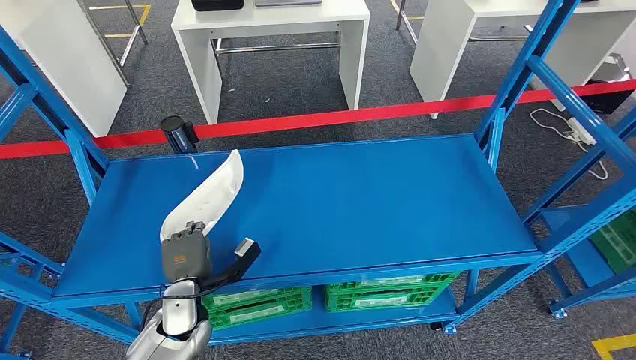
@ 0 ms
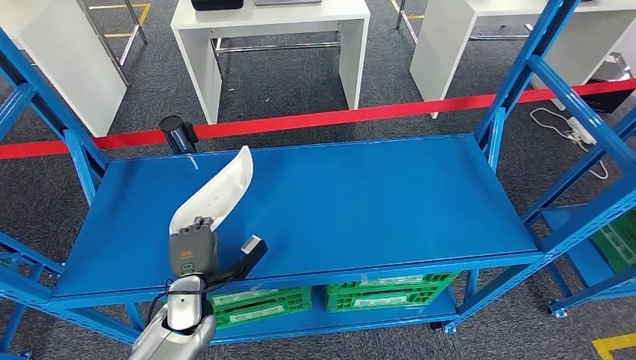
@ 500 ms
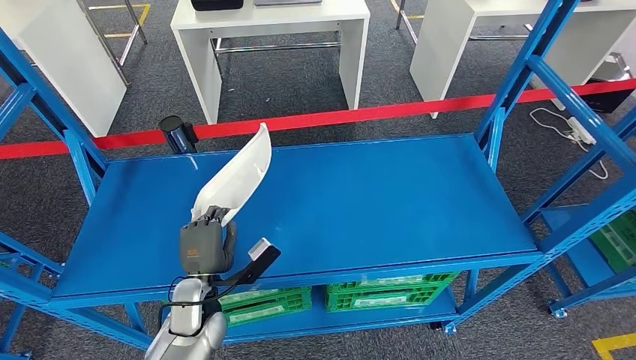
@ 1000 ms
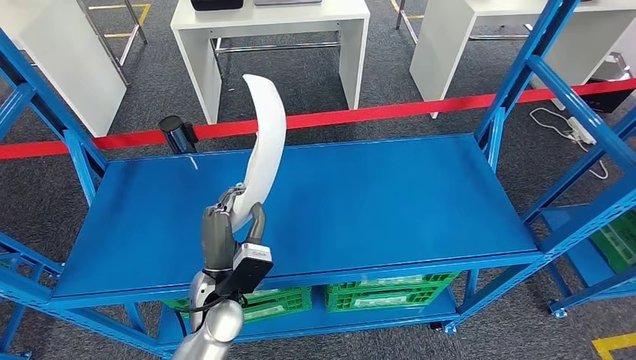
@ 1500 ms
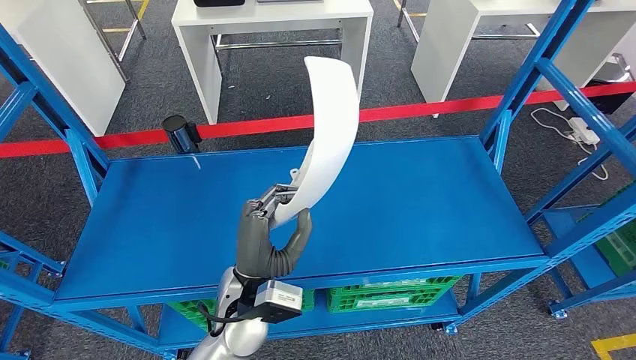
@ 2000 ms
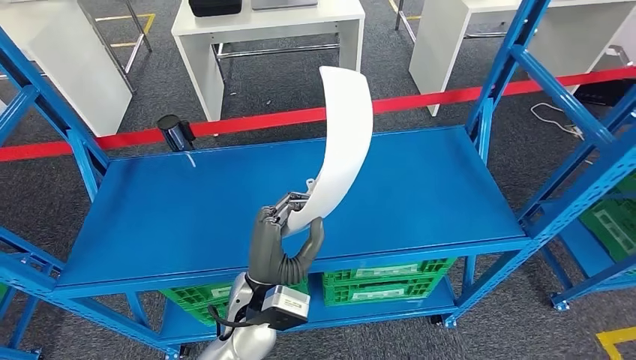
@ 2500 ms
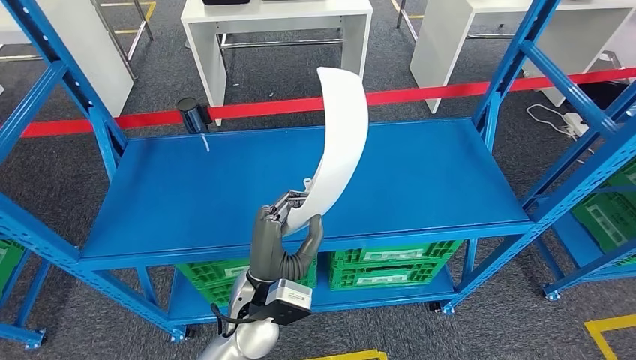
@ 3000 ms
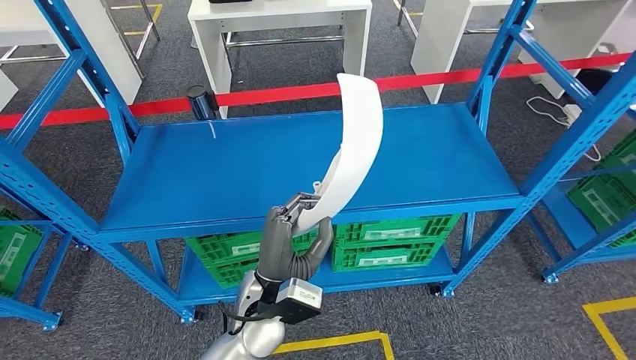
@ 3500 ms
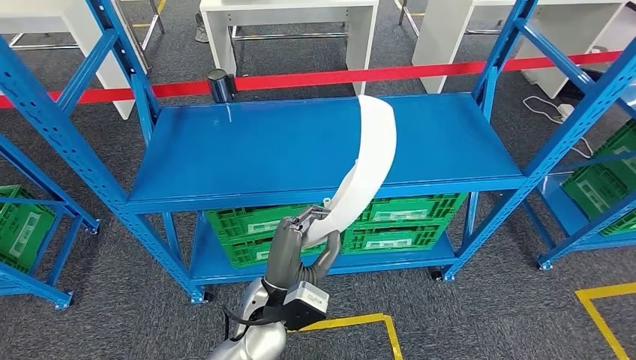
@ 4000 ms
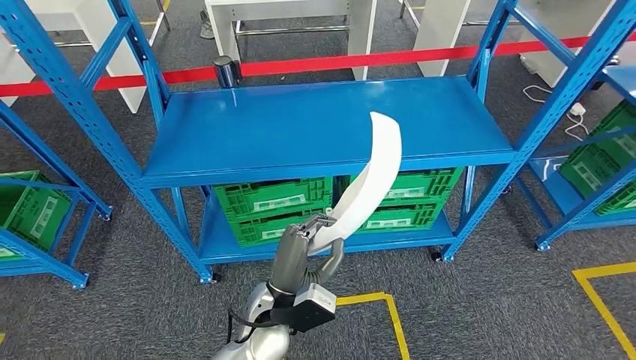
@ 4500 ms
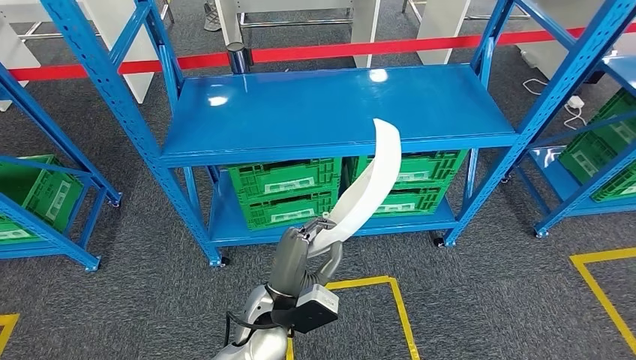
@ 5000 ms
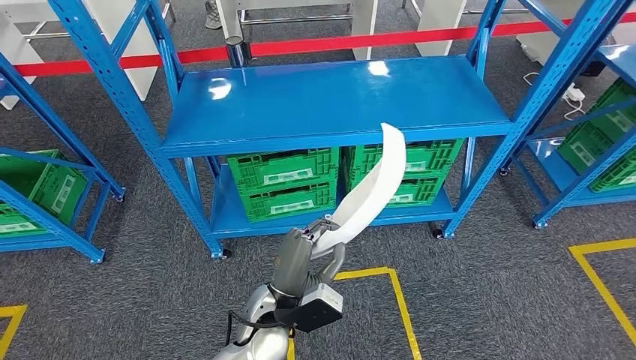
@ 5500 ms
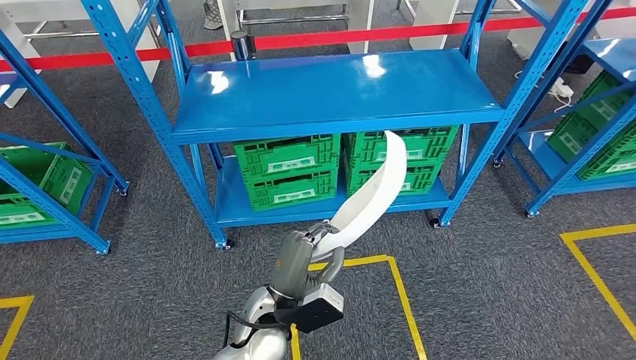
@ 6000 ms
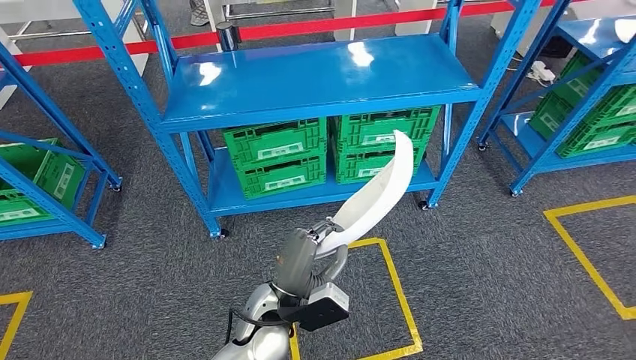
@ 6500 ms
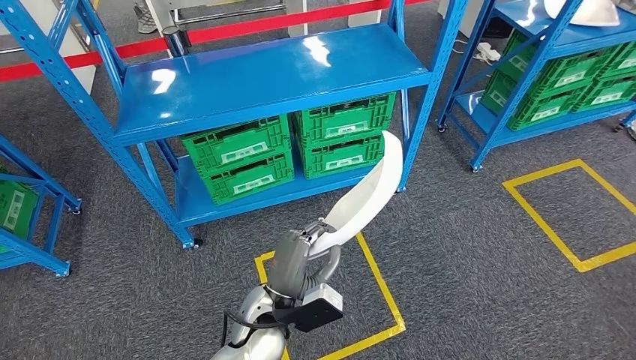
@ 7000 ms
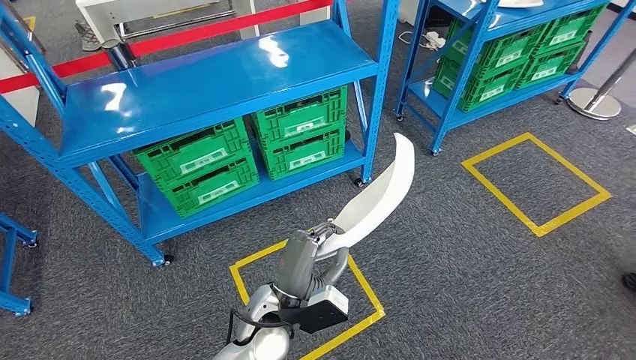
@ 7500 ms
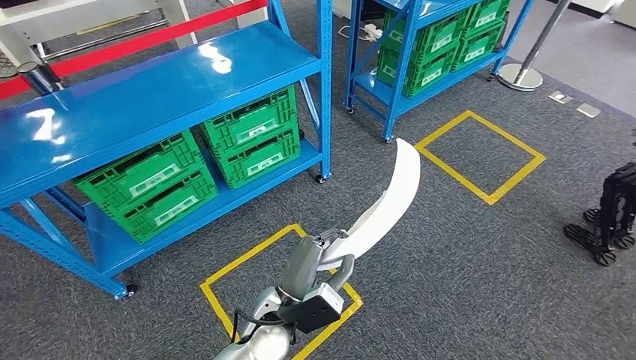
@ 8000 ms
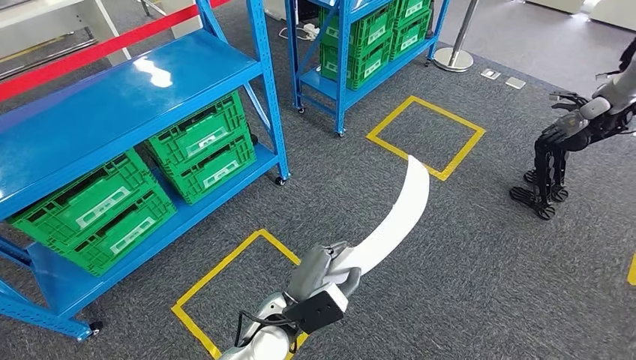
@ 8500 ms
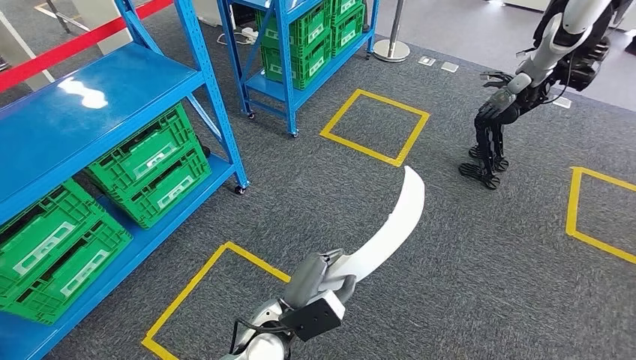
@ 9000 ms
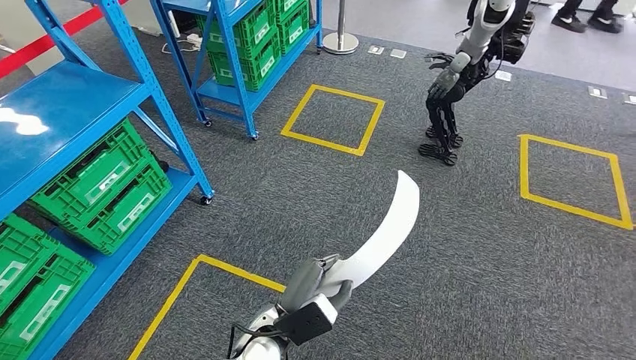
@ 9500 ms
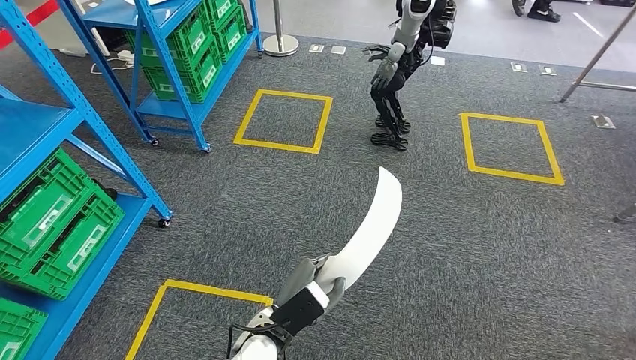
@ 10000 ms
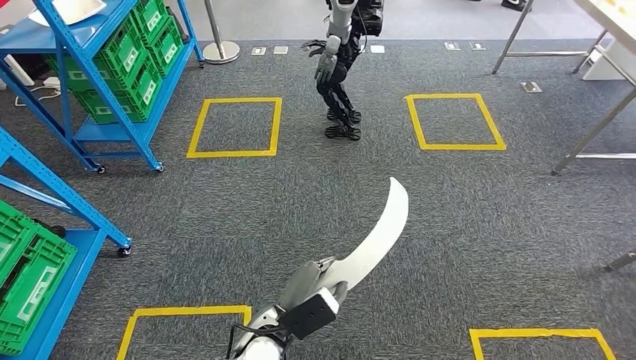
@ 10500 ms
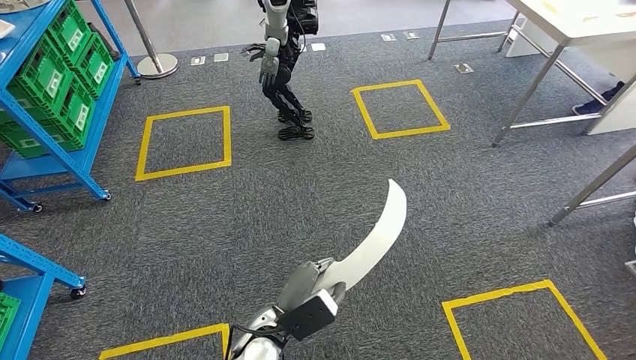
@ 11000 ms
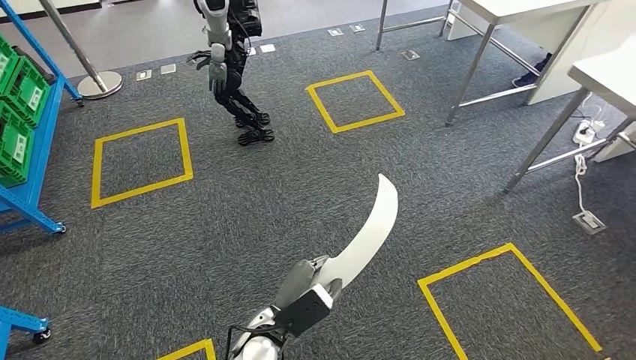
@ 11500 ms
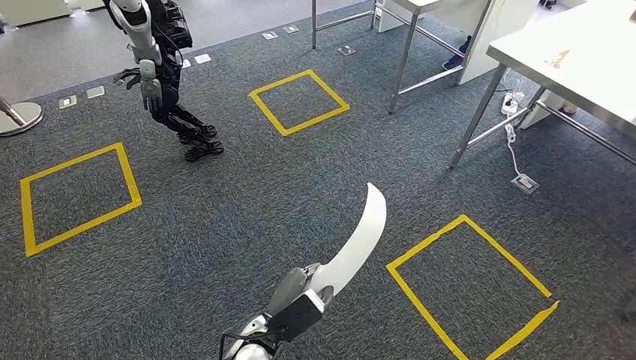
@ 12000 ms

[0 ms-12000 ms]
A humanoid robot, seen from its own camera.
Step, 0 ms to 2000 ms: Take small components from the rack.

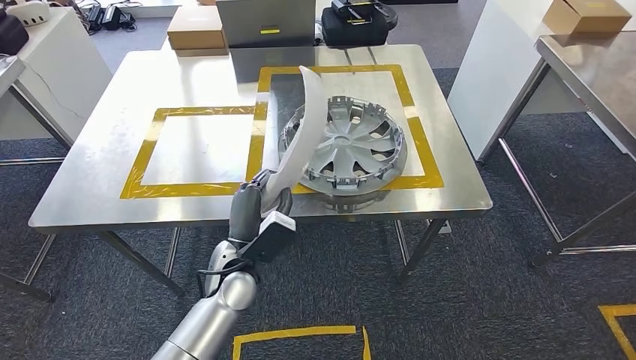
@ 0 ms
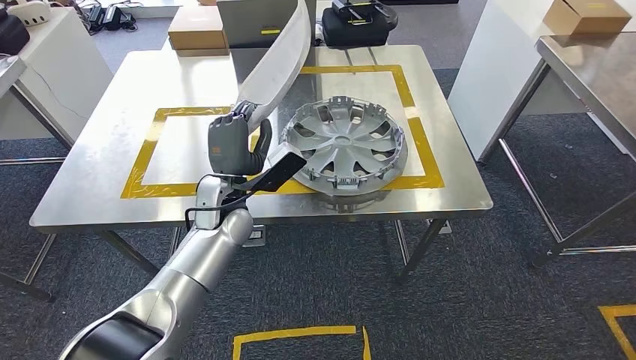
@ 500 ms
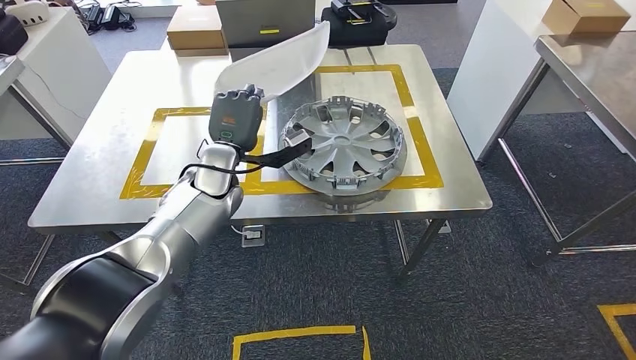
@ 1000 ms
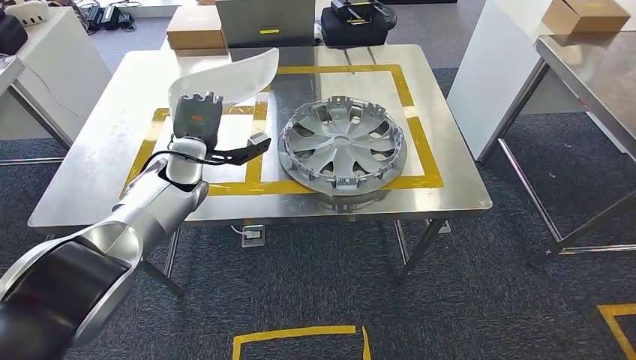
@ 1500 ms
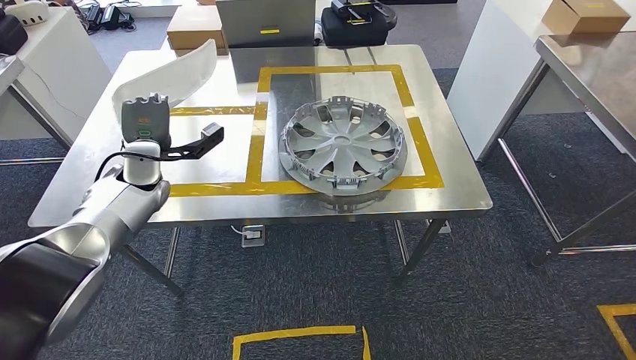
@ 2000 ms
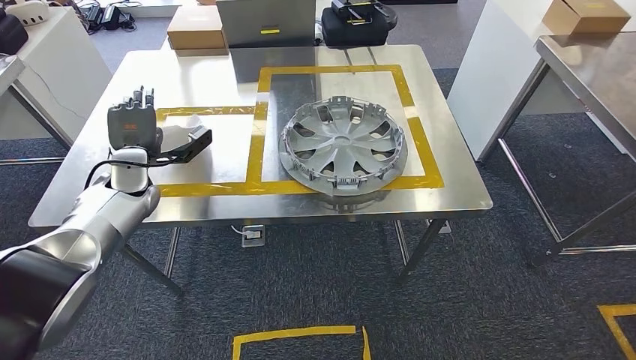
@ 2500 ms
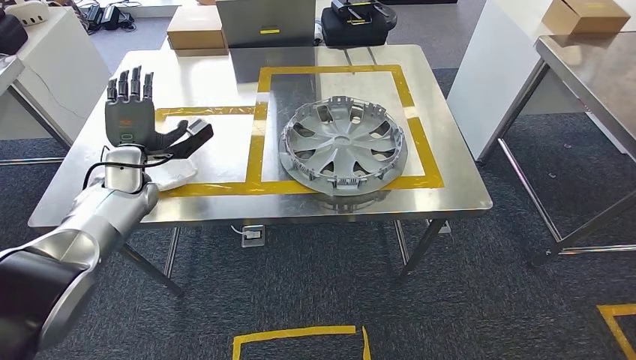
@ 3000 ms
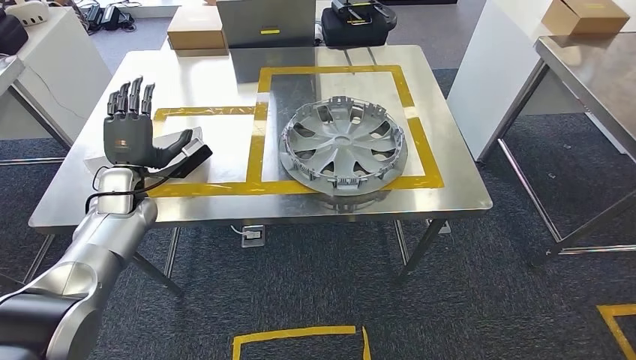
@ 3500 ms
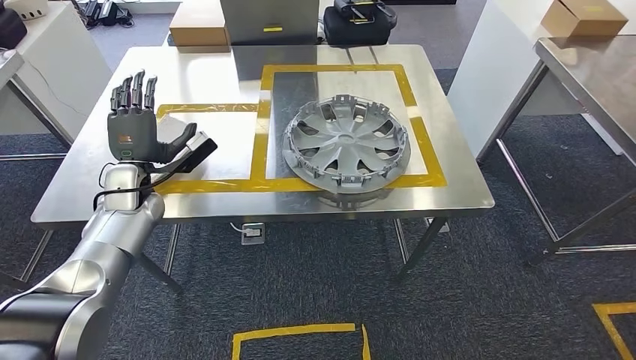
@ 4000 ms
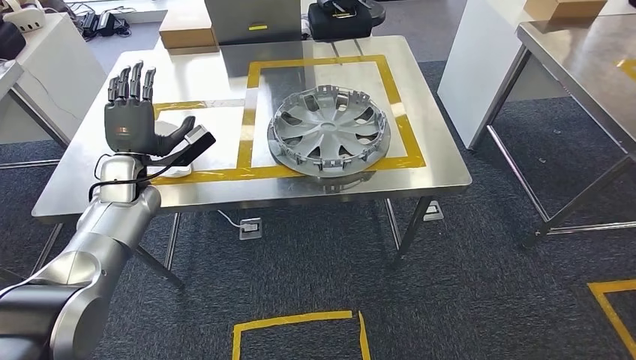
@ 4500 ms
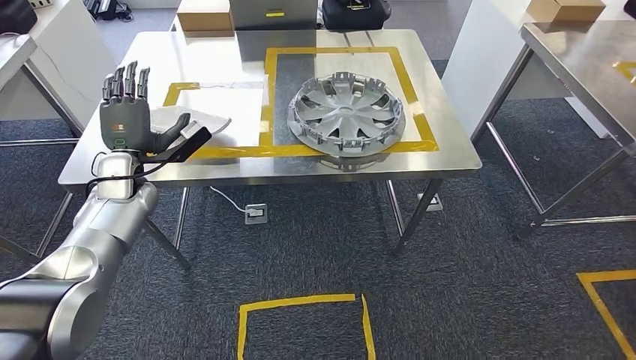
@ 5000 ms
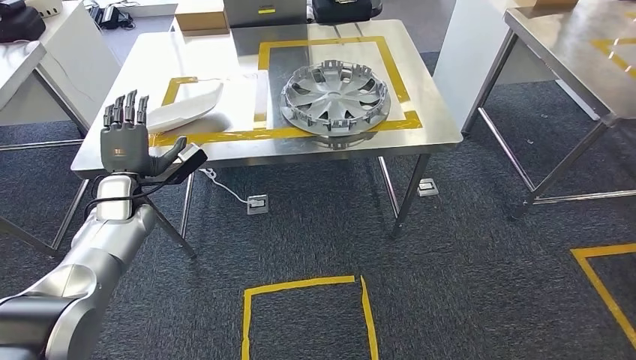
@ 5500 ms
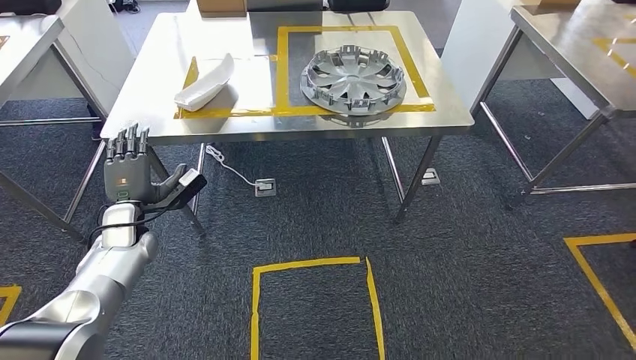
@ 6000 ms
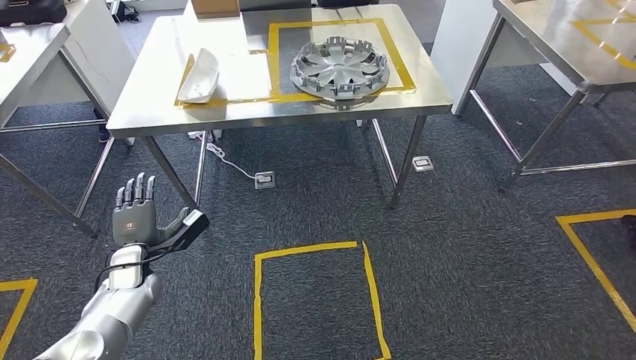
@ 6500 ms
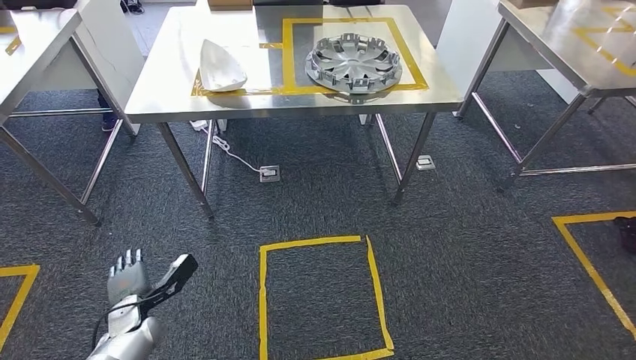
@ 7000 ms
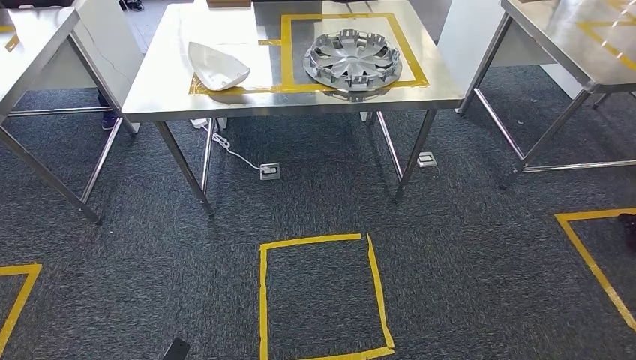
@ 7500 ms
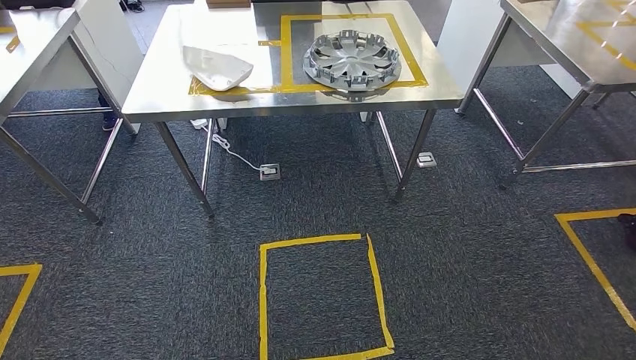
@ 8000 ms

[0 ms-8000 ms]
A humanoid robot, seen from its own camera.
Step, 0 ms to 4000 ms: Insert the small parts into the corresponding holes on the workbench.
Step, 4500 ms to 8000 ms: Move to the initial position of the workbench.
0 ms to 2000 ms: The left hand moves to the left and forward, approximately 30 cm.
